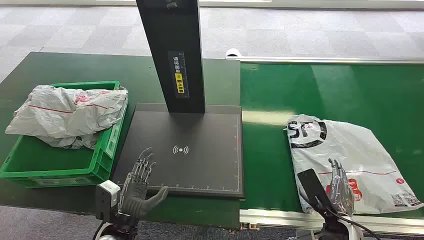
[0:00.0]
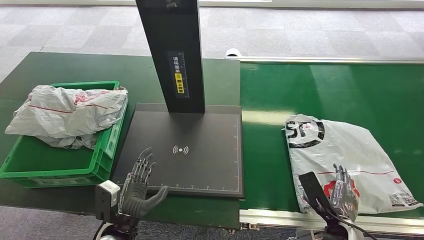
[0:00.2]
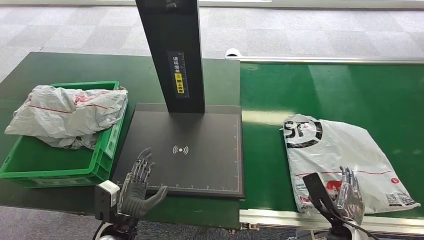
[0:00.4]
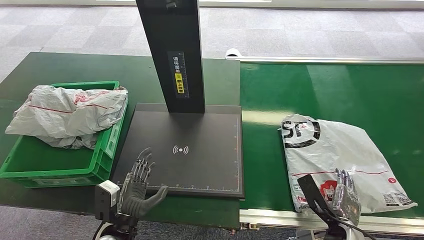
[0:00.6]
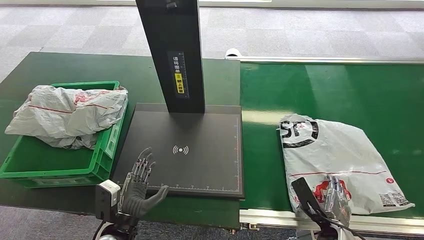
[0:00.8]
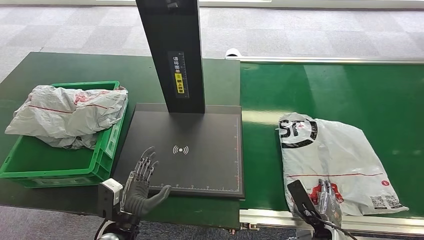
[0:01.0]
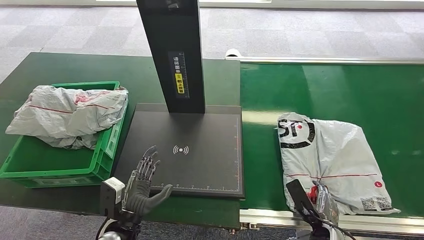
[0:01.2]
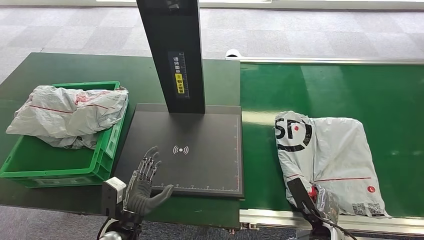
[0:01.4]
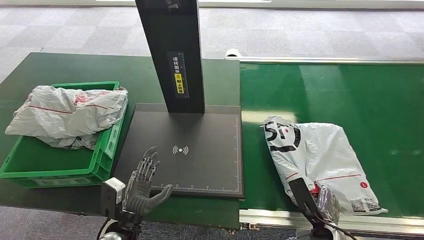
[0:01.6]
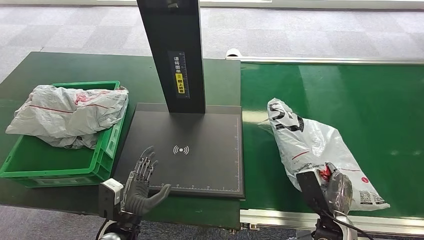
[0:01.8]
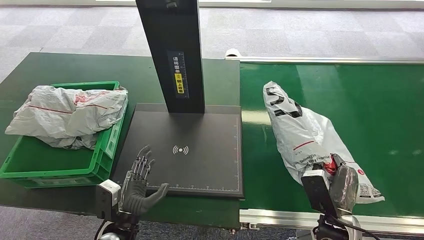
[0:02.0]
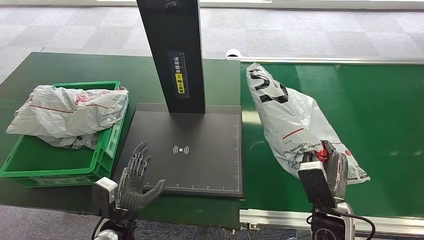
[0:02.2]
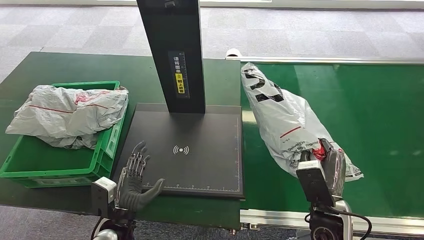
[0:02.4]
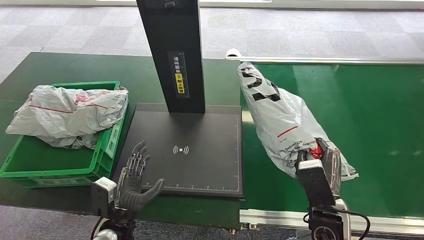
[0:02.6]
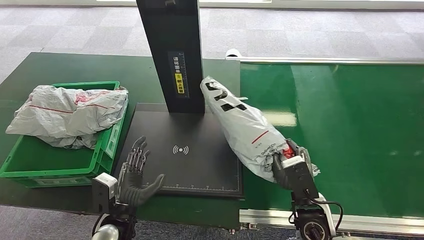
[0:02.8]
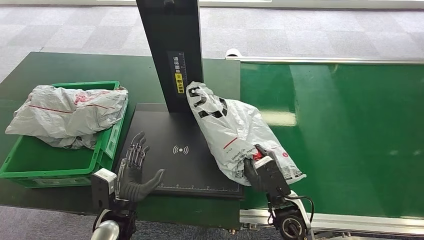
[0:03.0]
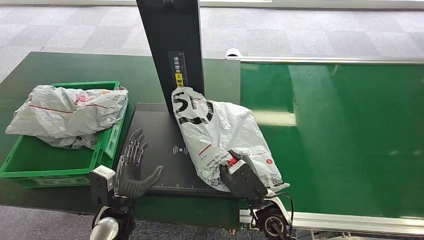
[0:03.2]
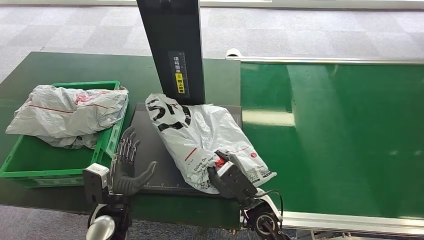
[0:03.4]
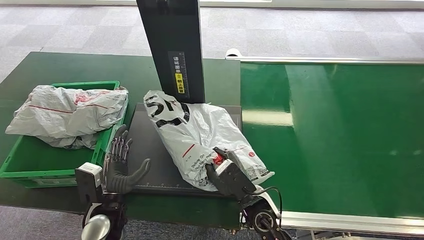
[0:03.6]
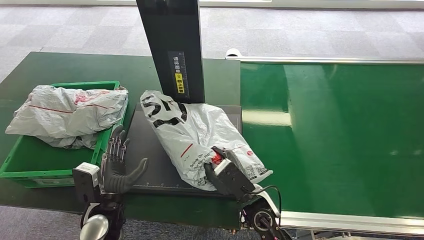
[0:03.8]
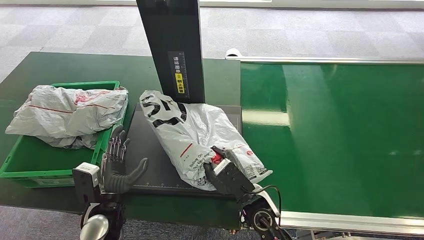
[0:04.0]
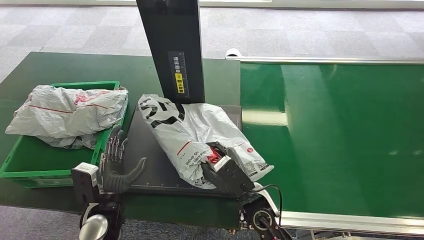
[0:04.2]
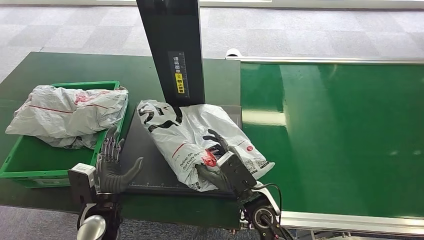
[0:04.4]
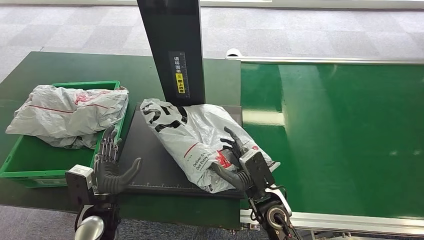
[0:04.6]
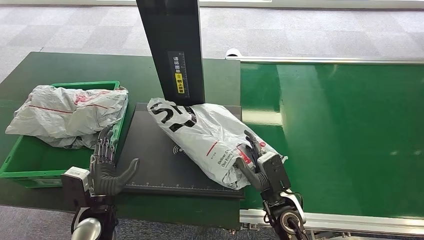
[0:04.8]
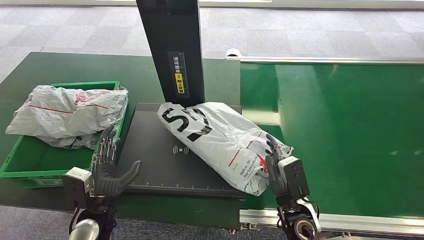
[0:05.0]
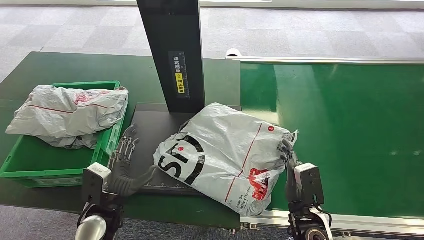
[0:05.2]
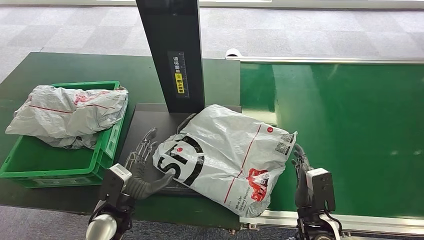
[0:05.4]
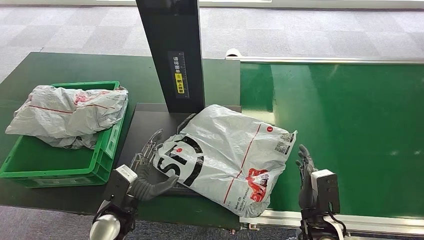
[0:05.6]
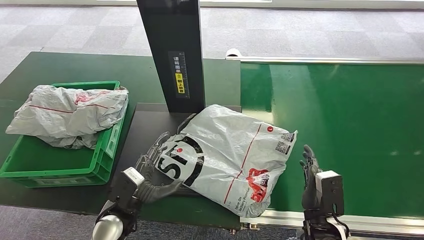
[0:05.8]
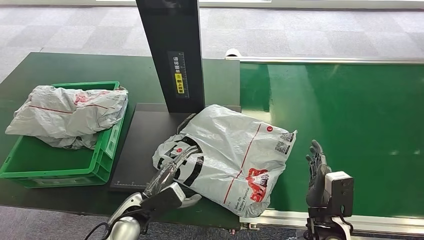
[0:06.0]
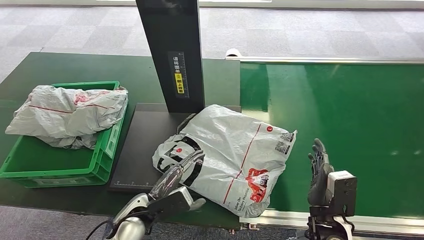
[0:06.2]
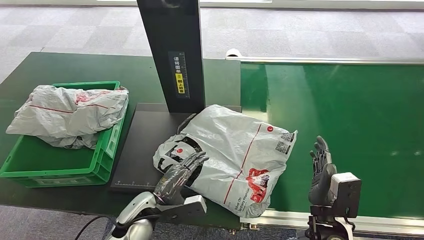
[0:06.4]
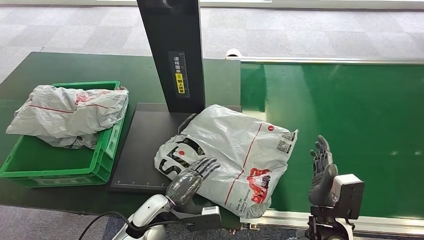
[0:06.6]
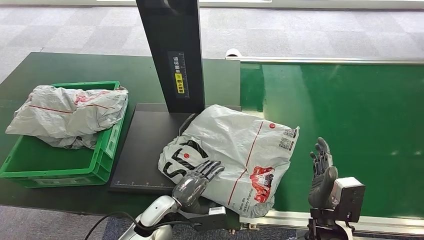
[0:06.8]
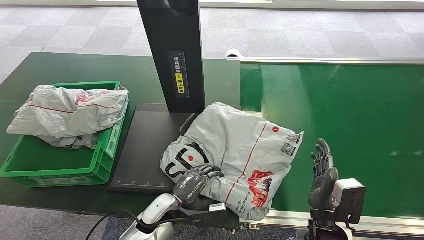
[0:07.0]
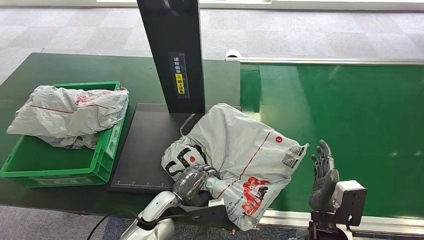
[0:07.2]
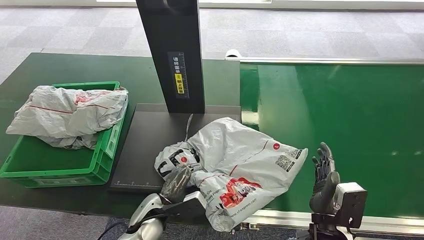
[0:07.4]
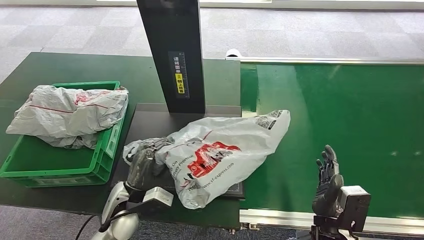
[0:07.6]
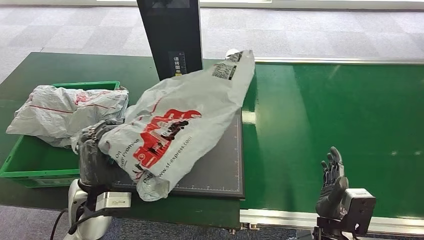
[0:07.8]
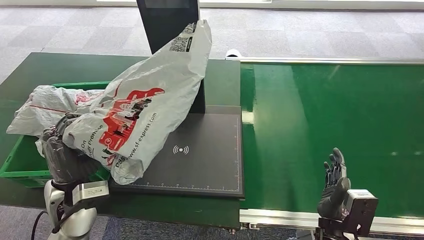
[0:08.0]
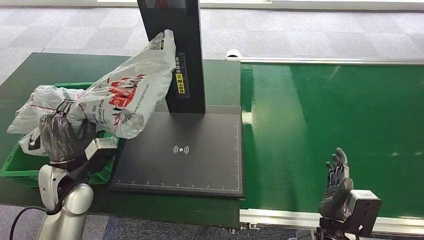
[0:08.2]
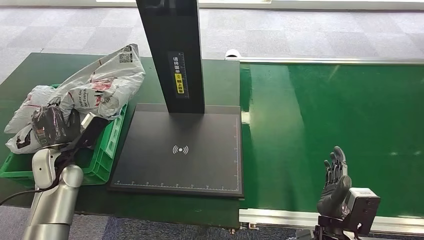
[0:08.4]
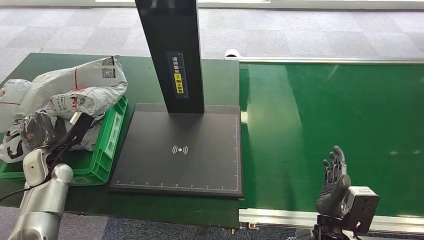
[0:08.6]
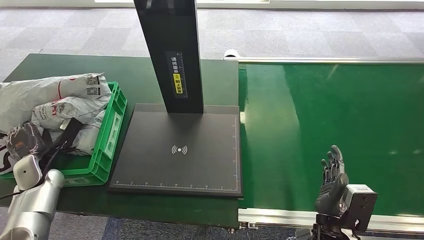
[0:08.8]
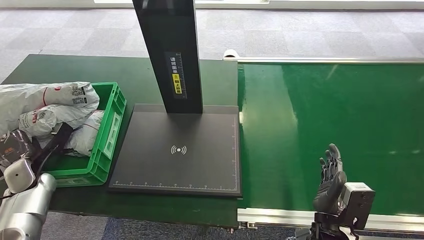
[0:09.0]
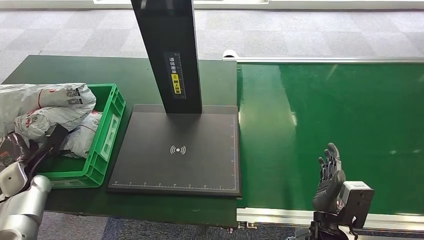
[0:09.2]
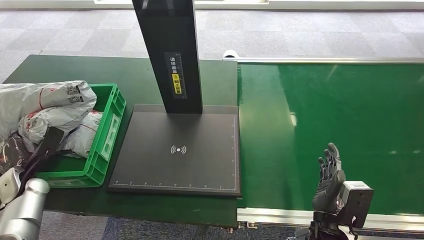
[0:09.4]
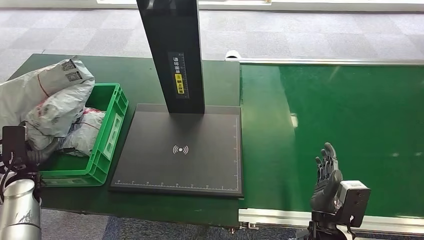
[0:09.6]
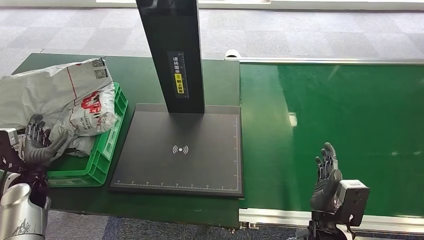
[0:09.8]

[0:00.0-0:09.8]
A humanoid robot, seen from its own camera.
Step, 0:00.0 to 0:02.2: Pick up the package from the conveyor belt.
Step, 0:02.4 to 0:05.2: Place the package onto the inbound machine.
Step, 0:05.4 to 0:07.6: Pick up the package from the inbound machine.
Step, 0:07.8 to 0:09.8: Place the package into the parcel locker.
0:01.4 to 0:02.8: The right hand is displaced upward and to the left by approximately 15 cm.
0:02.8 to 0:04.2: The right hand travels to the left by roughly 10 cm.
0:04.2 to 0:05.6: The right hand is displaced to the right by about 15 cm.
0:05.6 to 0:07.0: The left hand travels to the right and downward by roughly 10 cm.
0:08.4 to 0:09.8: The left hand travels to the left and downward by some 10 cm.
